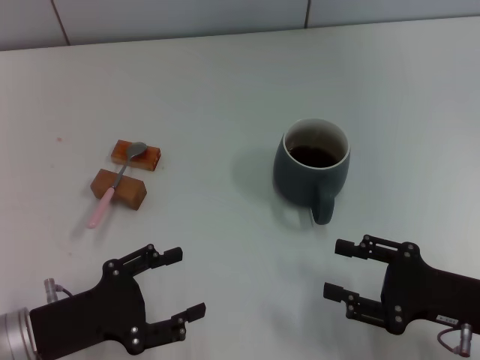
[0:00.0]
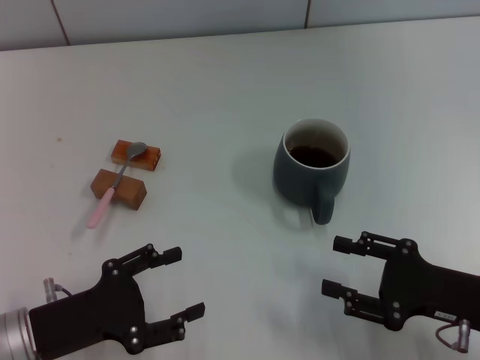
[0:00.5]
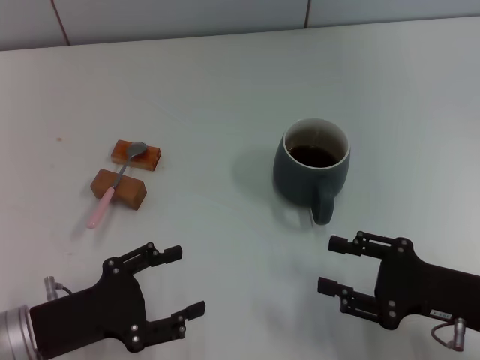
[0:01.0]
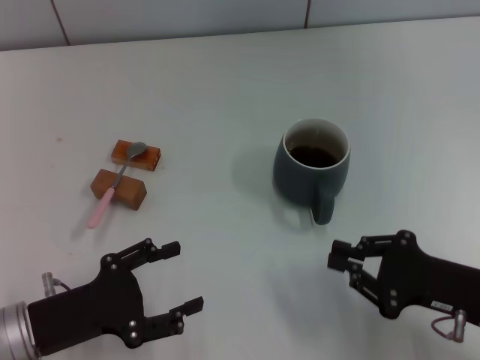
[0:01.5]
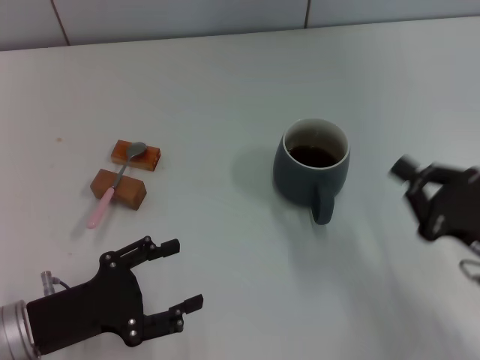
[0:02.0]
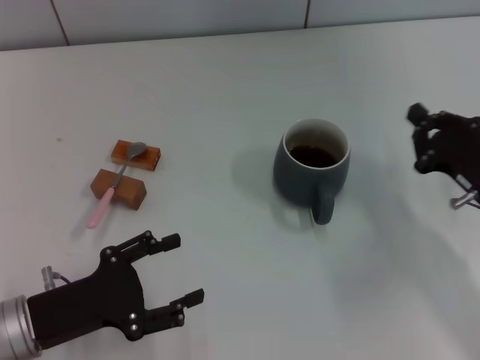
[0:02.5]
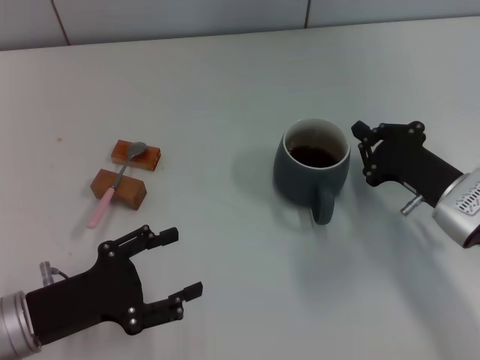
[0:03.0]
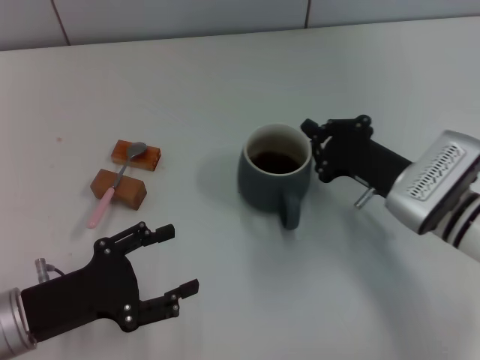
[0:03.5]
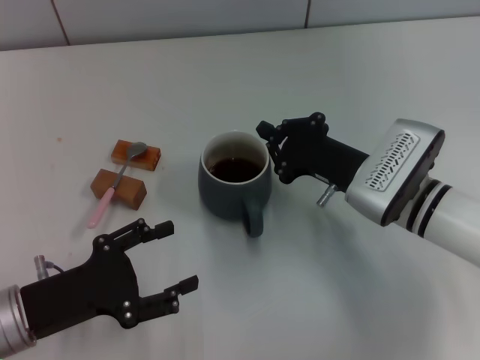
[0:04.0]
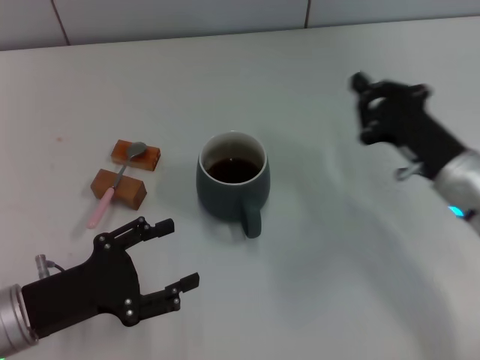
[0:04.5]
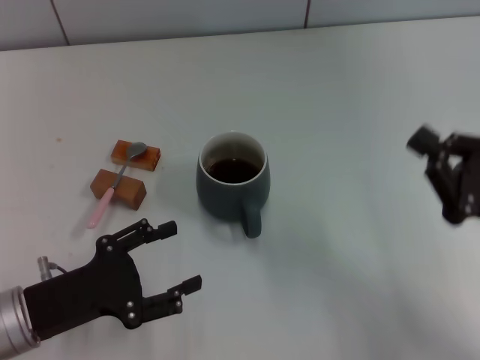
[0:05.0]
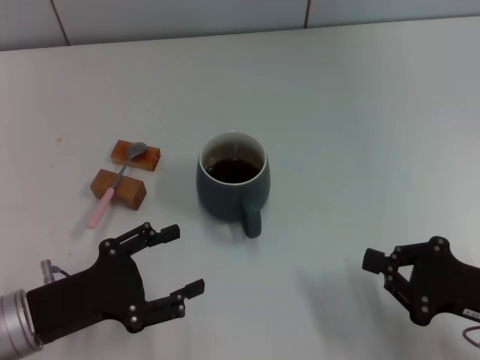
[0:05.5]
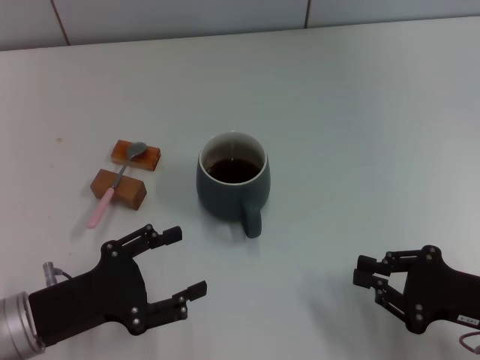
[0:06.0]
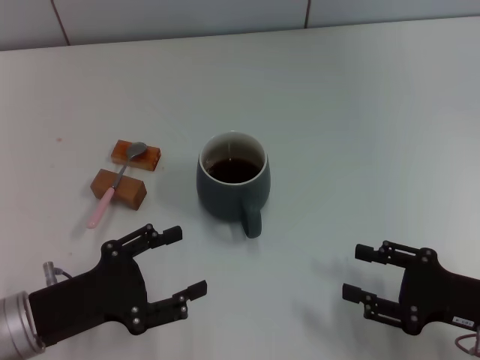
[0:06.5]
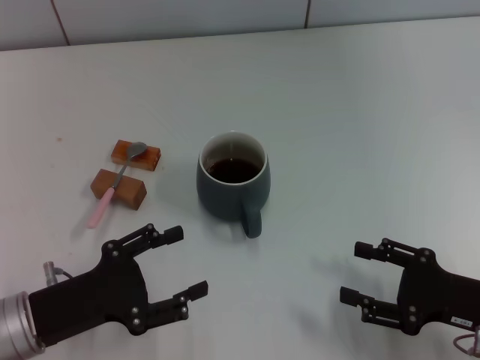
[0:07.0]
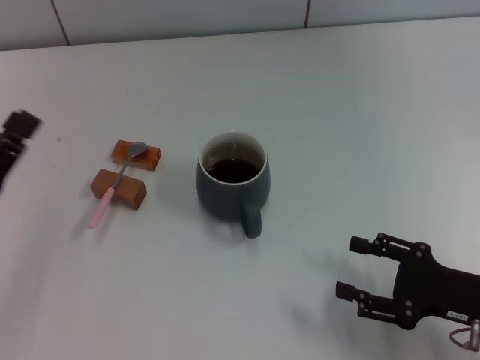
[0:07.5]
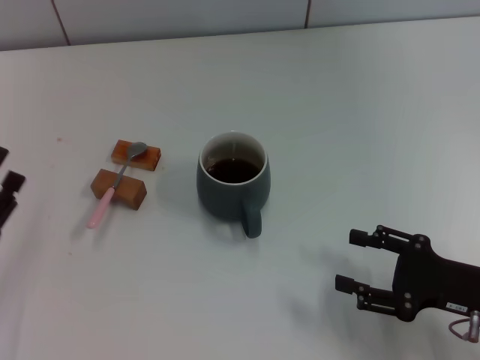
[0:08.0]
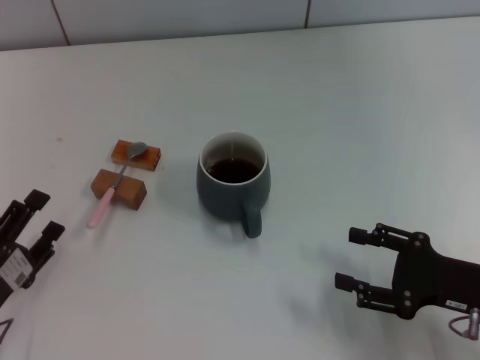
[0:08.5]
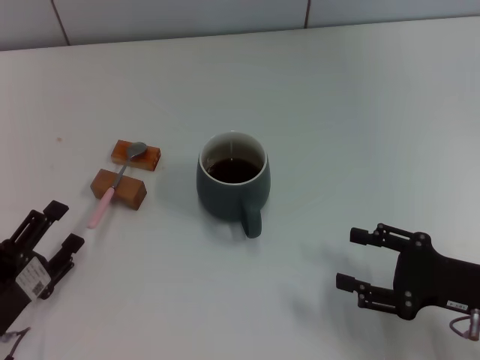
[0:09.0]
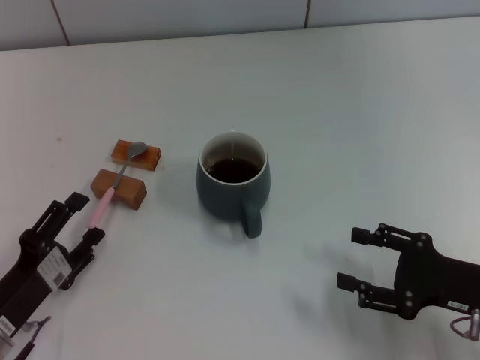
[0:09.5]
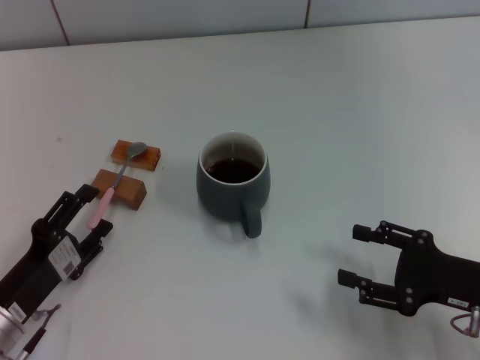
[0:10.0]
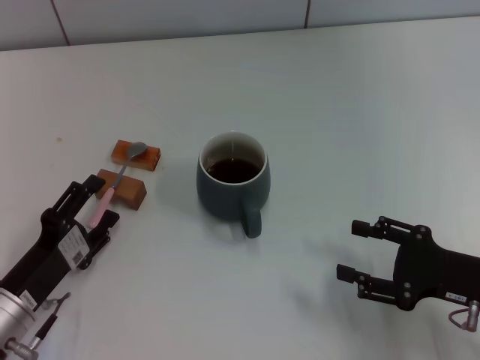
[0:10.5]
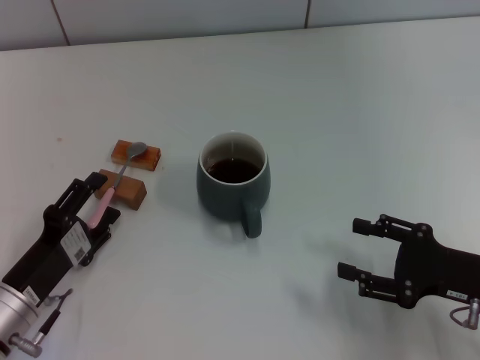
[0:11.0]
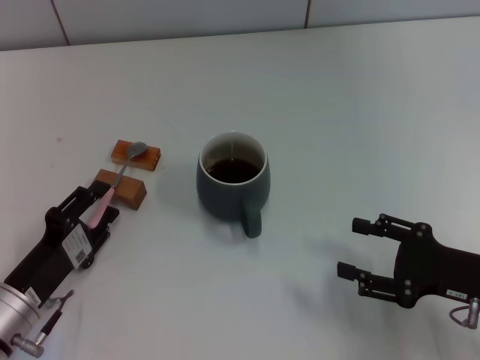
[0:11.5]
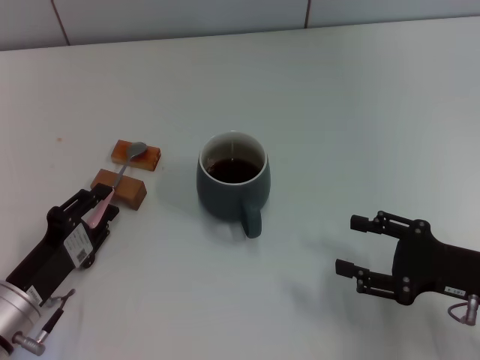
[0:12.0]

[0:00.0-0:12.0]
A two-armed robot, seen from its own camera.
Task of the whole recording: Move the grey cup to the center, lift the pink spoon, stir it three times in the cup, and put the spoon into the cup.
Step, 0:00.0 to 0:04.0: Move the cup with coffee to the center of view with the right gripper.
0:00.0 to 0:02.0: The right gripper closes.
0:02.0 to 0:04.0: The right gripper heads to the left and forward, covering roughly 15 cm.
0:04.0 to 0:06.0: The right gripper is displaced backward and to the right by approximately 20 cm.
0:06.0 to 0:08.0: The left gripper travels to the left by some 5 cm. The right gripper opens its fingers.
0:08.0 to 0:10.0: The left gripper ends up about 5 cm from where it was.
0:10.0 to 0:12.0: The left gripper closes.

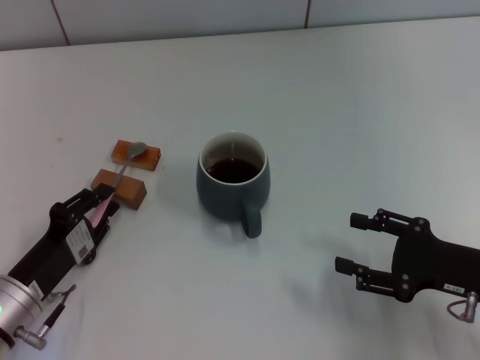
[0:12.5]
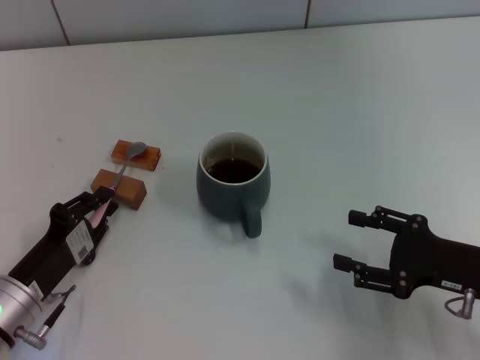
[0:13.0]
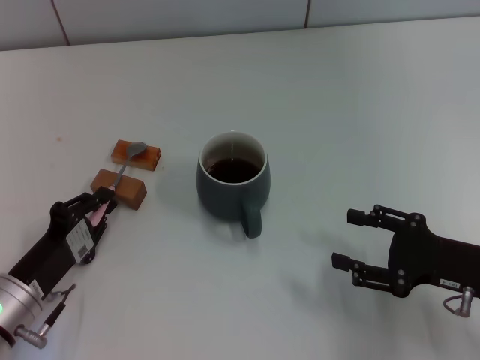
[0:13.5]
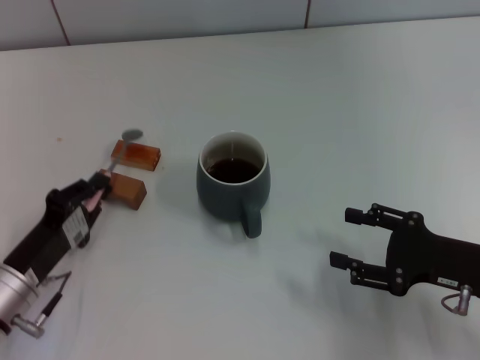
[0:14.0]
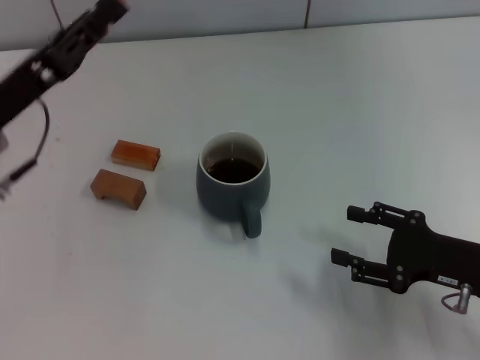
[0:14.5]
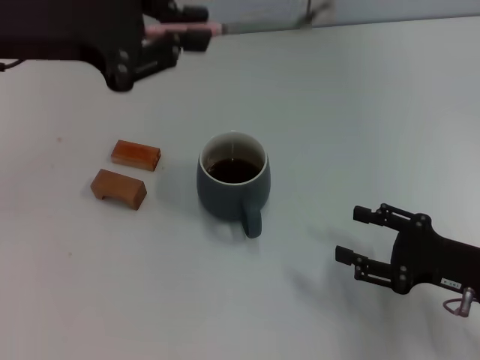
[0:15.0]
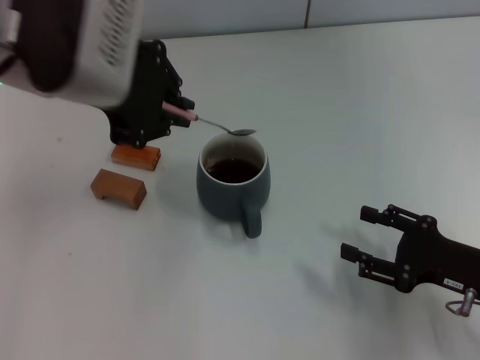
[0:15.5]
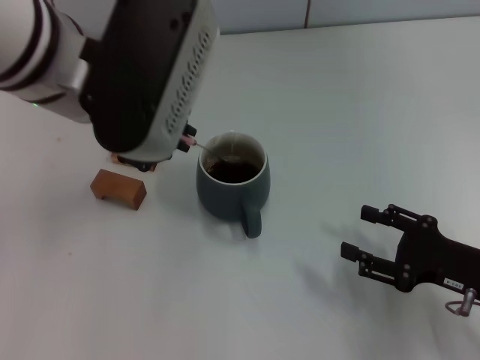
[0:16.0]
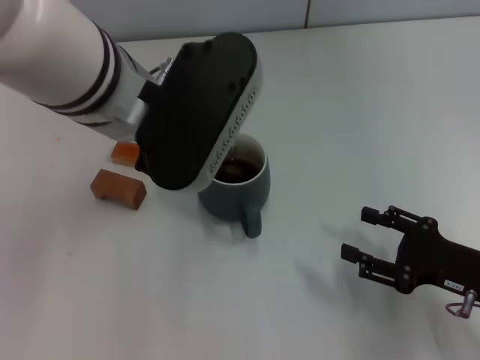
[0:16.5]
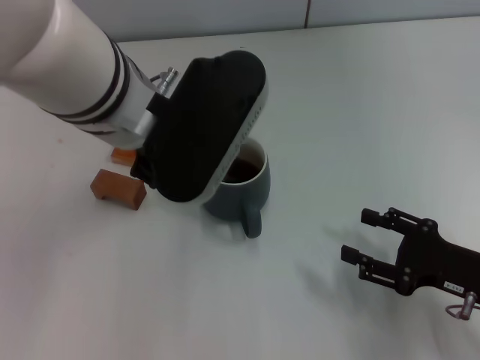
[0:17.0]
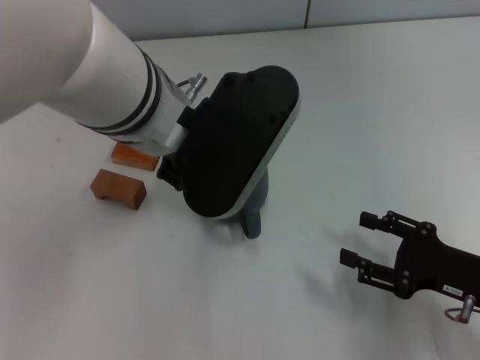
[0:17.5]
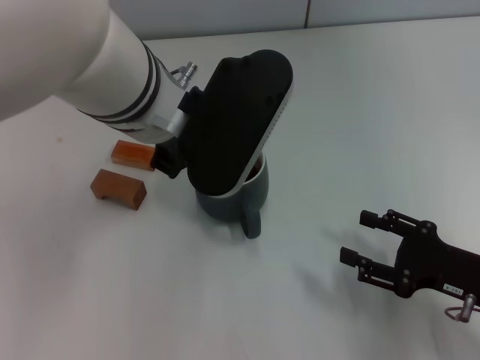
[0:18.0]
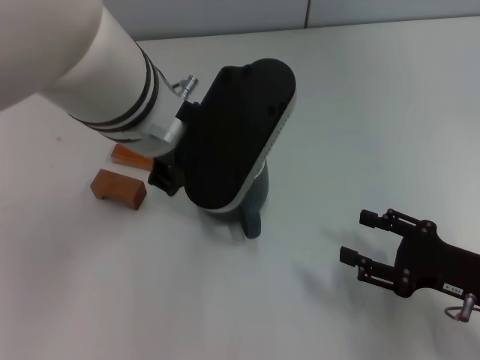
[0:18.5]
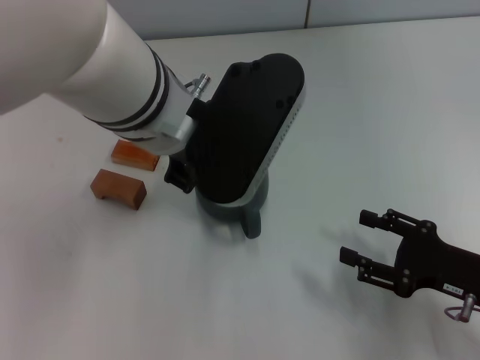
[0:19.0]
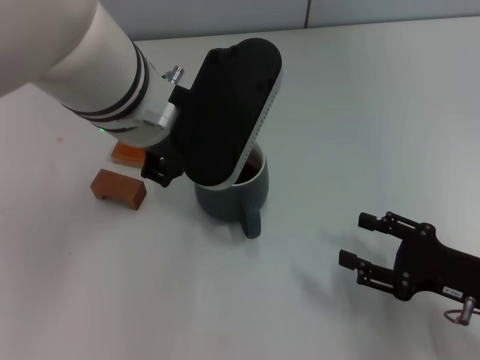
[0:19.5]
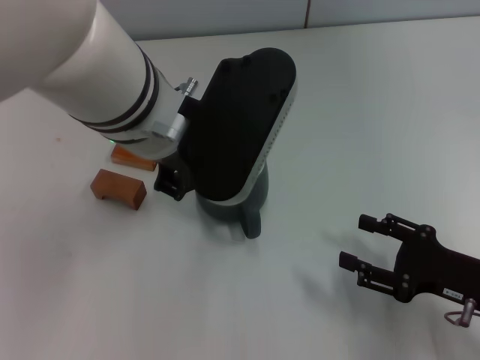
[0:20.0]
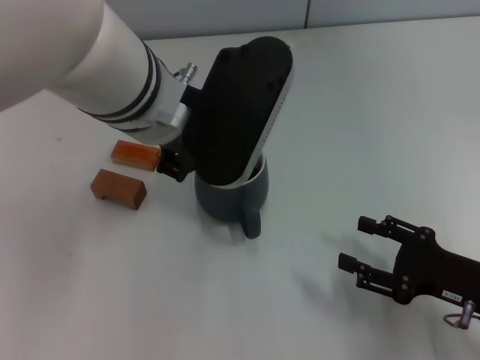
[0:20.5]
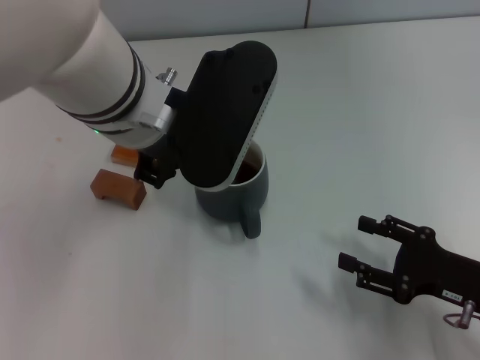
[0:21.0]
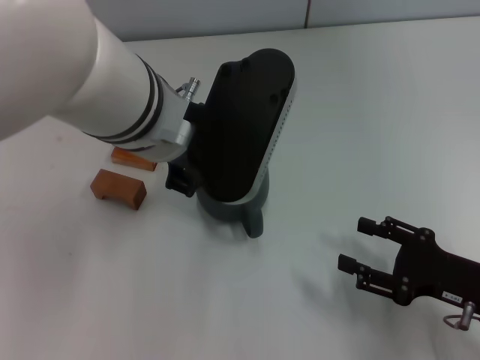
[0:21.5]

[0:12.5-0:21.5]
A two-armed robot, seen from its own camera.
Task of the whole recording: Move the grey cup to the center, lift the pink spoon, stir it three times in the cup, and put the spoon into the cup.
0:12.5 to 0:14.5: The left gripper travels upward and forward by roughly 20 cm, and closes its fingers.
0:14.5 to 0:17.0: The left gripper heads to the right and upward, covering some 20 cm.
0:17.0 to 0:21.5: The grippers make only small movements.

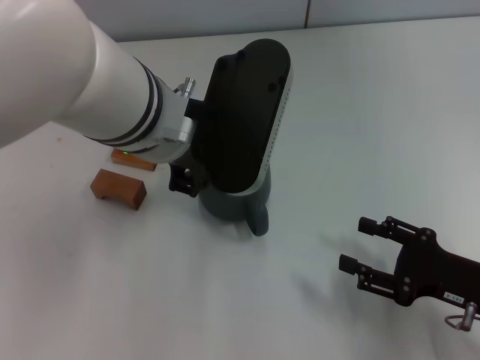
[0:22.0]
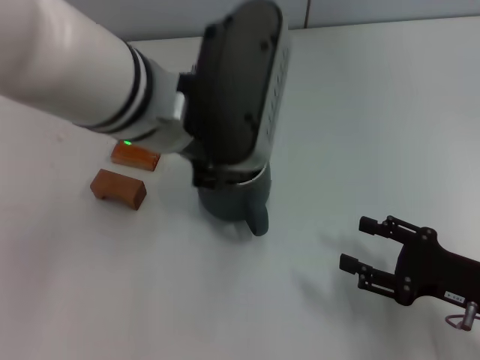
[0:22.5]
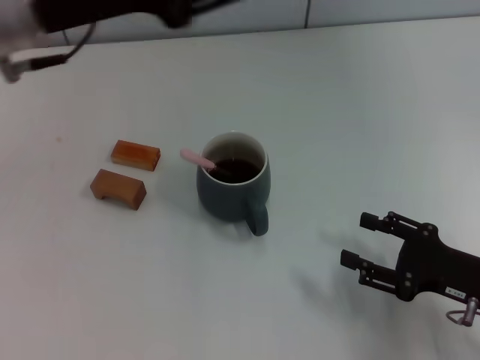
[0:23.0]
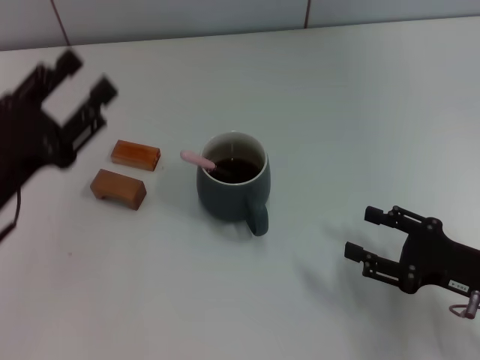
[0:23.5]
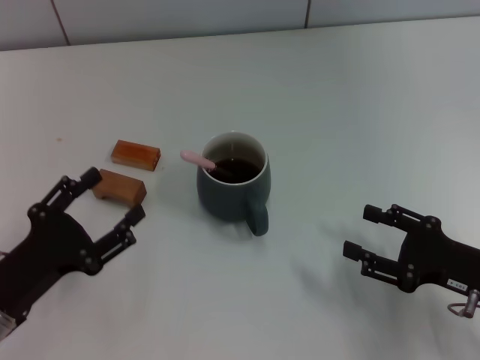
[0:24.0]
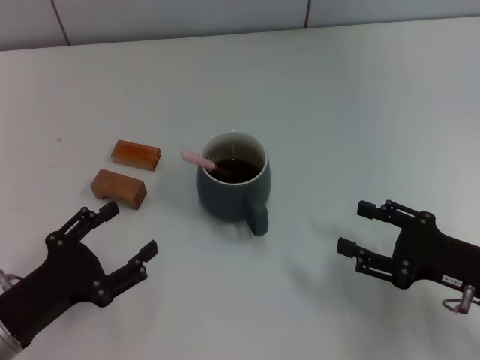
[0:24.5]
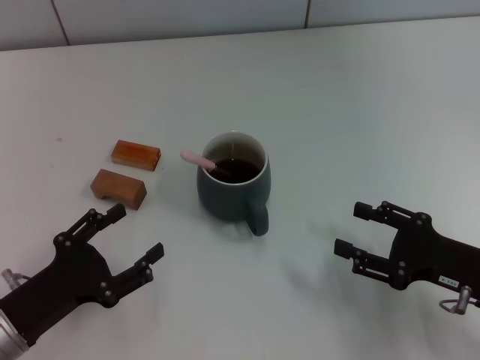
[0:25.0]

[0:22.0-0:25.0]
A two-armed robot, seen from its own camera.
Task of the whole recording: Move the grey cup to the center, lift the pink spoon, stir it three times in the cup, and put the spoon into the cup.
0:22.0 to 0:23.5: The left gripper moves to the left and downward, about 25 cm, and opens.
0:23.5 to 0:25.0: The left gripper shifts approximately 10 cm downward and backward, and opens its fingers.

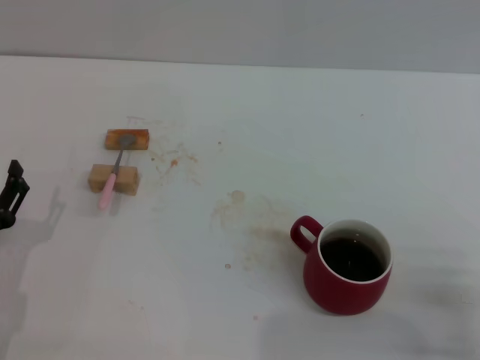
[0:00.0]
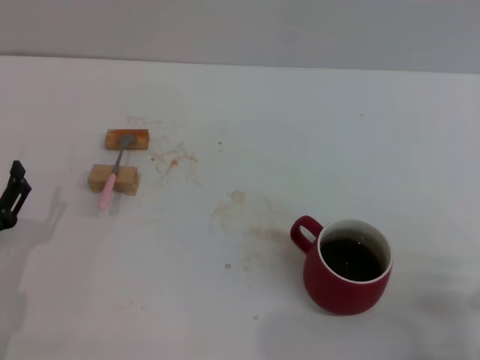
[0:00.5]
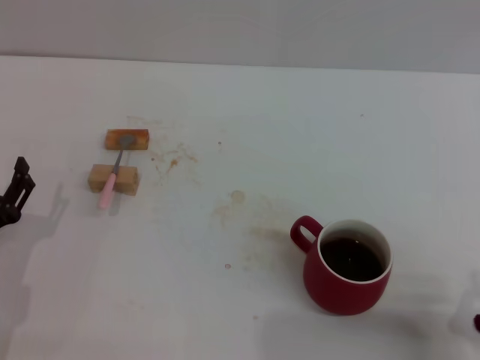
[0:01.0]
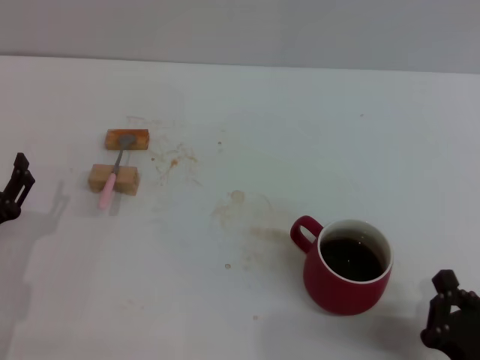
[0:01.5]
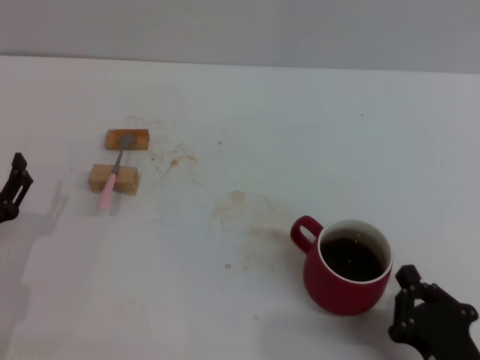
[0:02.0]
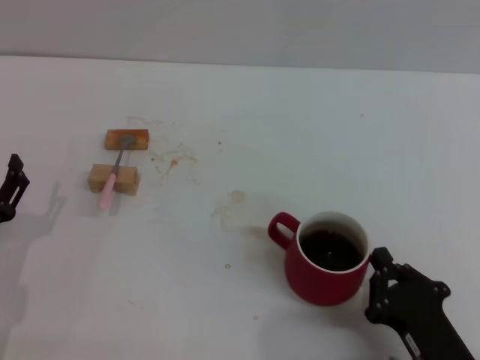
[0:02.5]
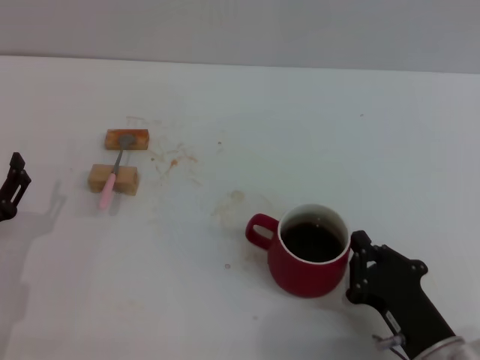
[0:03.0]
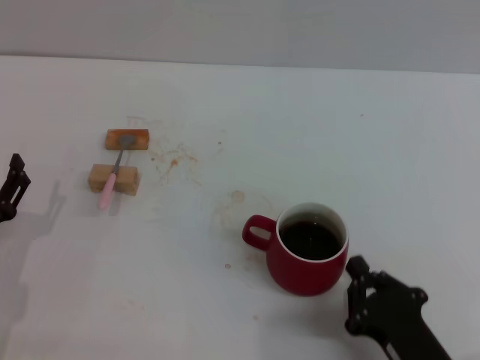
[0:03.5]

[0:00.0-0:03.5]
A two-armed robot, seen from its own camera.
Task of the whole recording: Move the red cup to the center, lift the pink spoon, stir it three times in the cup, and put the spoon into the cup.
0:00.0 to 0:02.0: The right gripper shifts some 5 cm to the left.
0:02.0 to 0:03.5: There are only small adjustments of the grippers.
